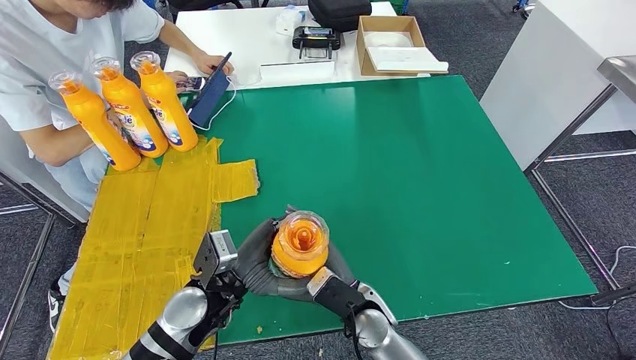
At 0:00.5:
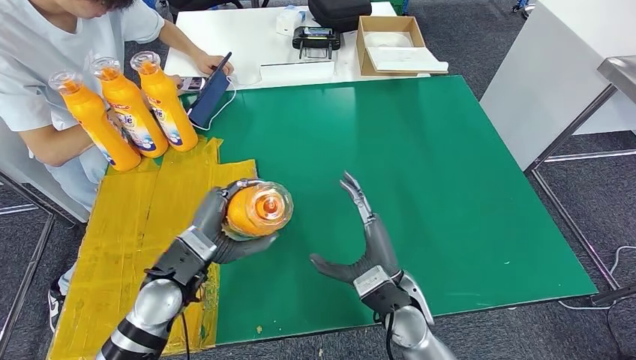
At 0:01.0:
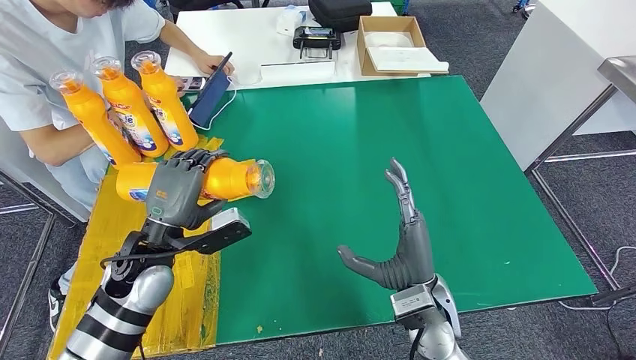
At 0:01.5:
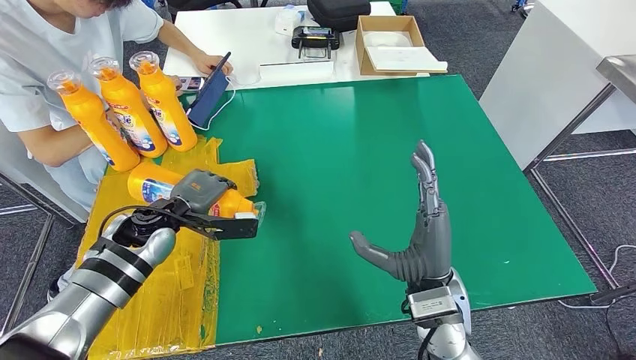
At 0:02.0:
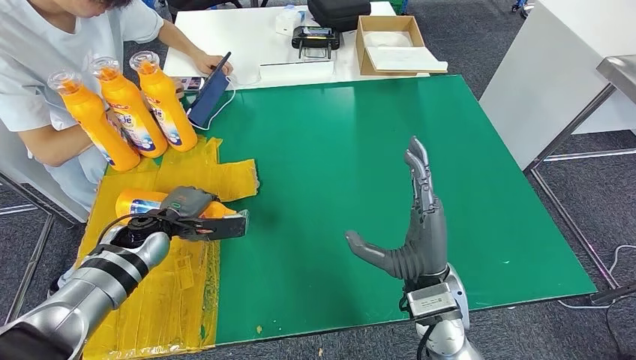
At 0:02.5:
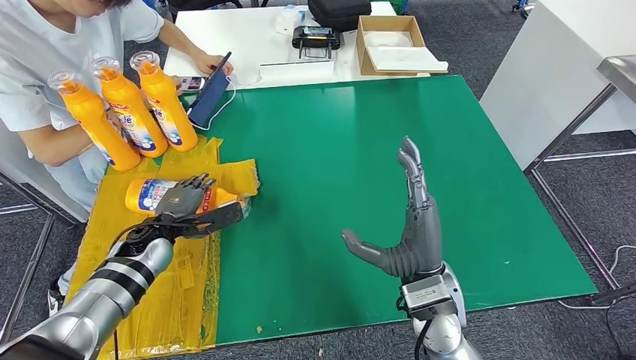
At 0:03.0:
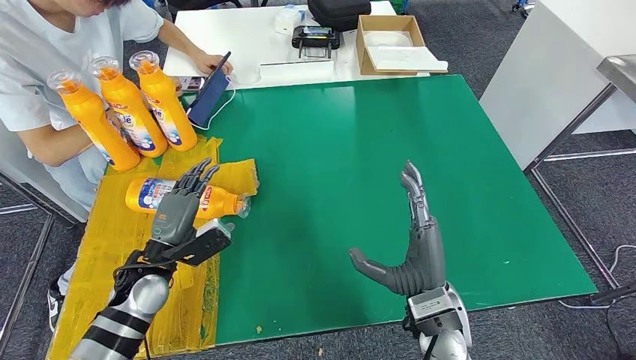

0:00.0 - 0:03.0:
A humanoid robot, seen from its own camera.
Step, 0:00.0 - 0:03.0: Flip the fast-moving consumer goods bottle to the front side.
0:00.0 - 0:01.5: The left hand travels forward and to the left by roughly 15 cm. Meanwhile the right hand goes roughly 15 cm upward and to the right.
0:01.5 - 0:03.0: The left hand travels backward by approximately 10 cm.
